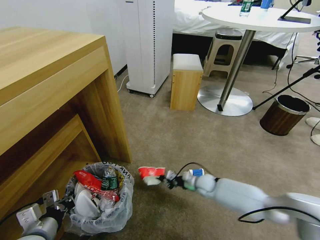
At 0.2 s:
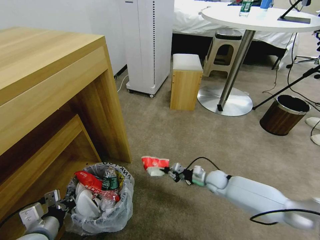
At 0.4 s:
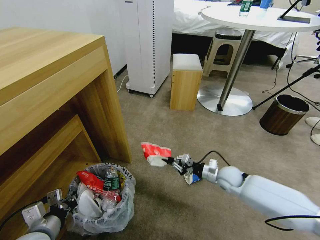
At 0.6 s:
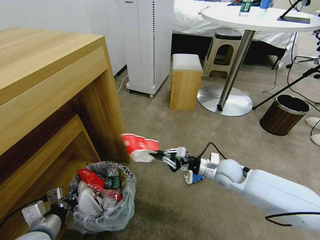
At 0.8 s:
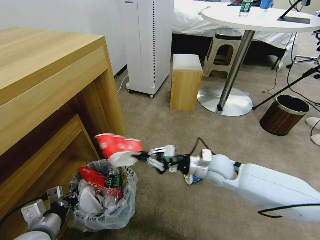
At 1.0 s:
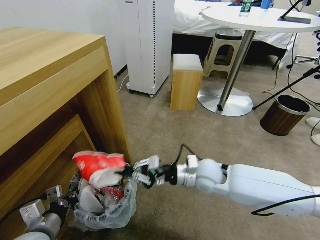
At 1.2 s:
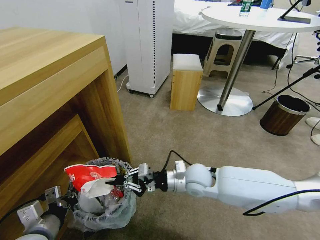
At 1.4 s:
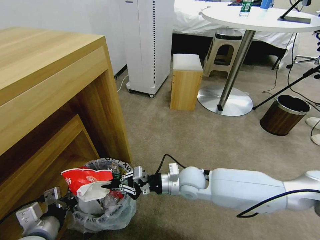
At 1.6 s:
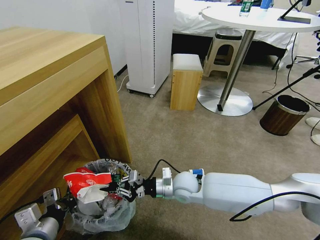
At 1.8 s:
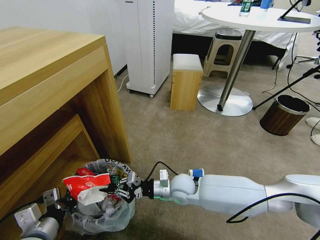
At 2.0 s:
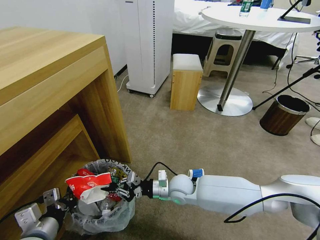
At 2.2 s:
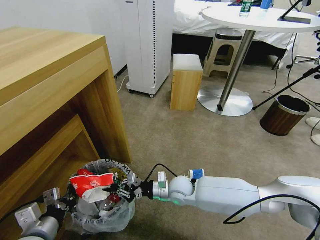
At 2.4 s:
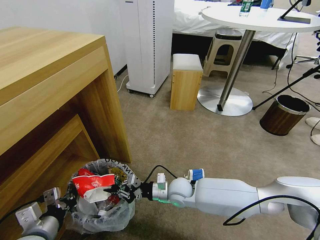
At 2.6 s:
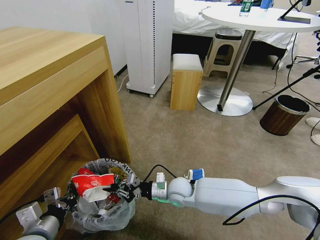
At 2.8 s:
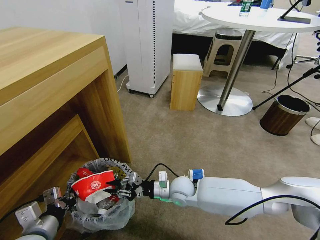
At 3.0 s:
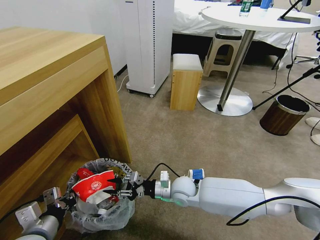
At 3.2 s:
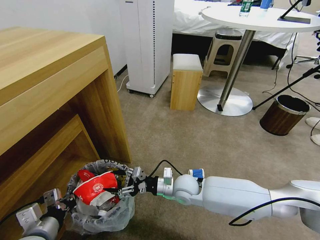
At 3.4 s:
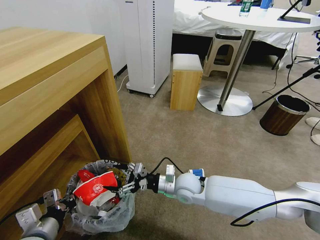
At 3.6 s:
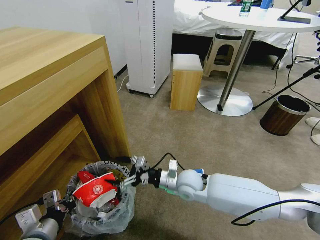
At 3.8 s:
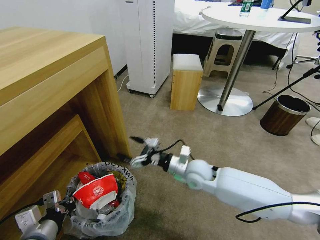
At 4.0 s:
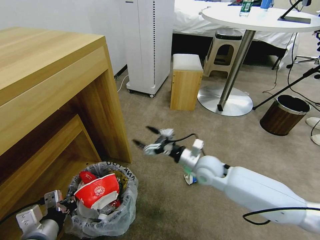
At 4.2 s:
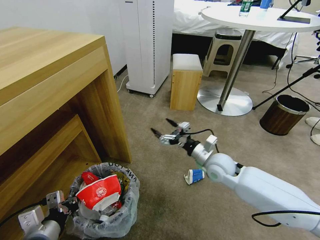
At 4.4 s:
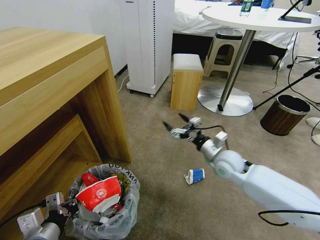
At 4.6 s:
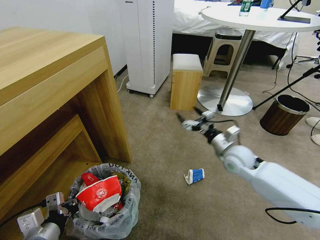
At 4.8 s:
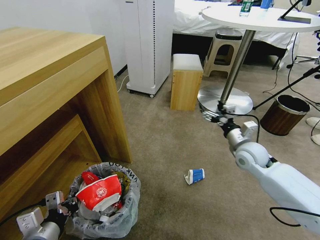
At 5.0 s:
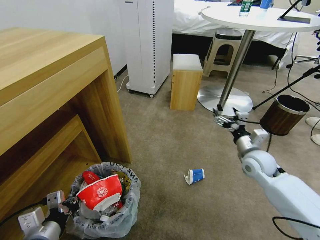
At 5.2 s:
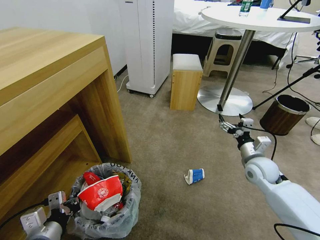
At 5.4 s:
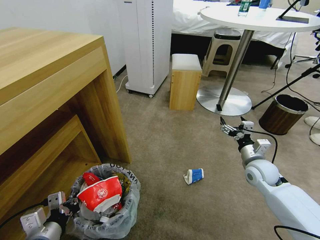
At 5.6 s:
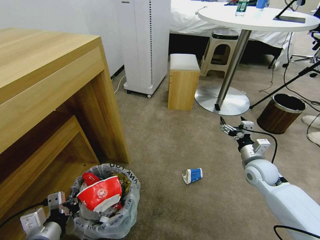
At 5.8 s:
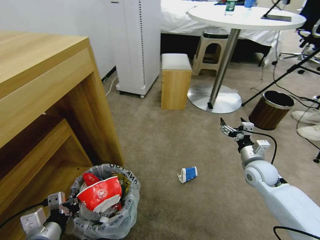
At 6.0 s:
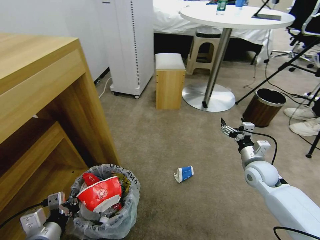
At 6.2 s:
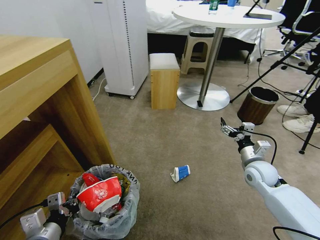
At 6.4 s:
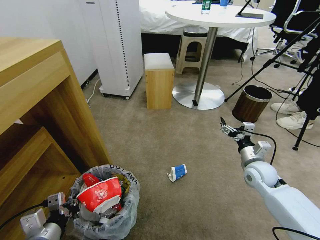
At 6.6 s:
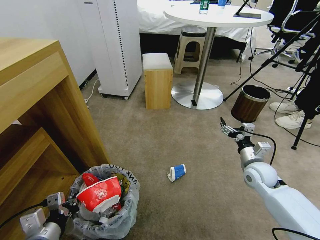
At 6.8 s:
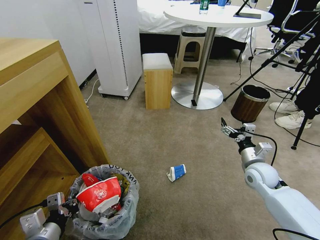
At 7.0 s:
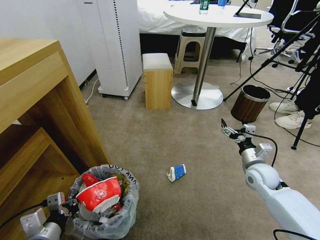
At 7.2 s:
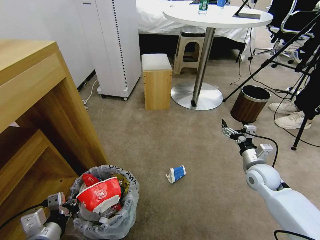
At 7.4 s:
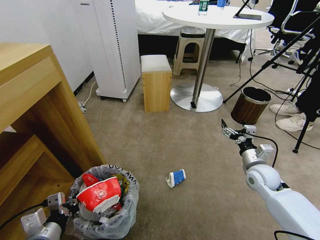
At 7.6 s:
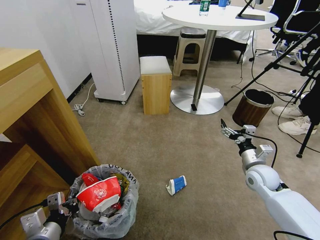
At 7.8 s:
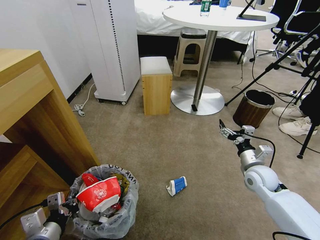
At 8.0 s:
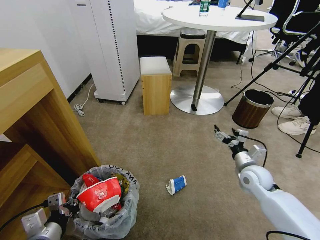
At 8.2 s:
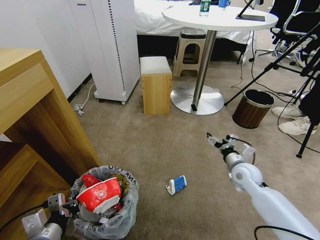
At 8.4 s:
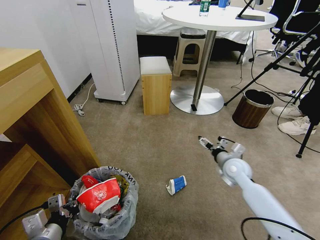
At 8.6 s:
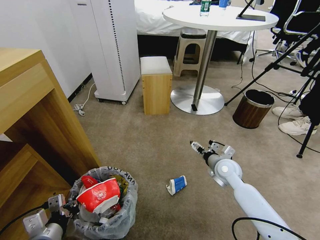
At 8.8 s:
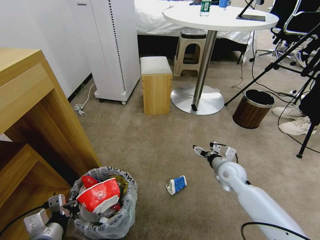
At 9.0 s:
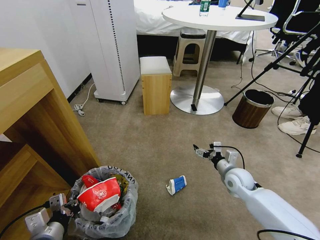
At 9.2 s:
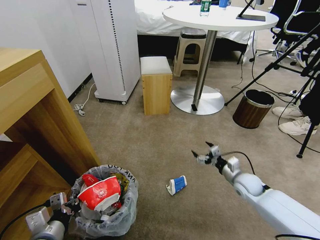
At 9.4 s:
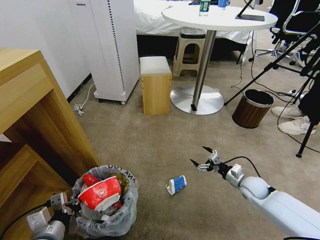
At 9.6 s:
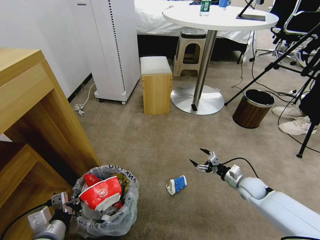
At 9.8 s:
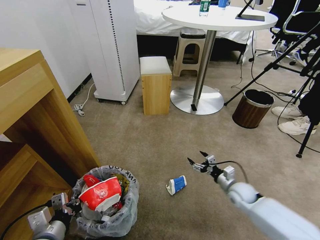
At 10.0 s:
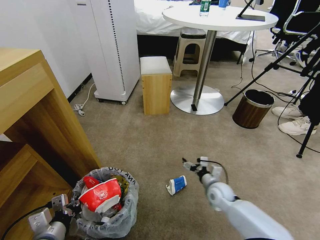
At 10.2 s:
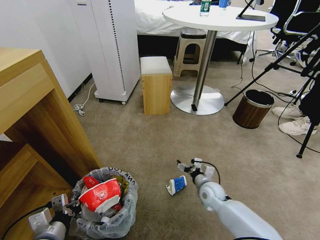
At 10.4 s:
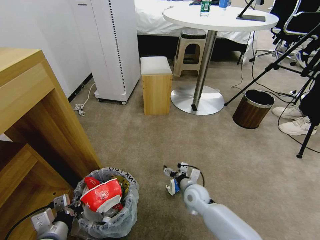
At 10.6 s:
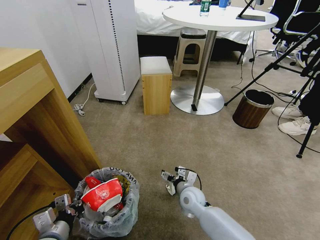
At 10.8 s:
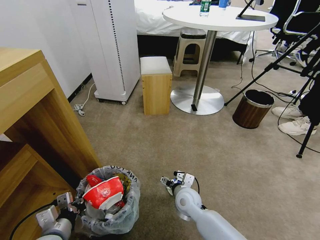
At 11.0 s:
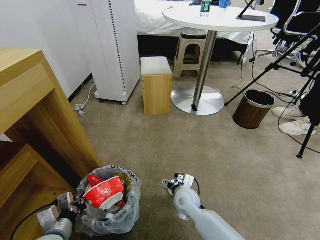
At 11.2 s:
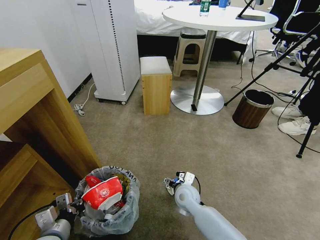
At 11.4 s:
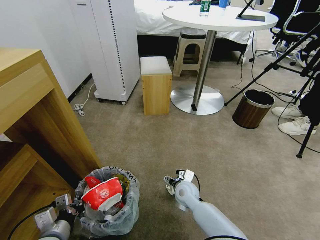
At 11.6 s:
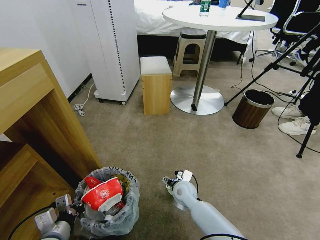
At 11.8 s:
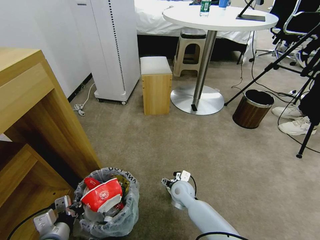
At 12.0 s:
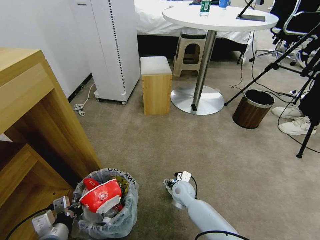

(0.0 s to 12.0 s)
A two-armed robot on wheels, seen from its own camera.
Task of the whole recording: Pick up the trash bin and place the garbage on the floor into it.
0.0 s - 1.6 s: The right gripper shifts roughly 20 cm upward, to the left and backward.
1.6 s - 3.0 s: The right gripper opens up.
3.0 s - 4.4 s: The right gripper heads to the right and upward, covering about 20 cm, and opens its fingers.
4.4 s - 6.0 s: The right gripper travels to the right by some 10 cm.
7.6 s - 9.0 s: The right gripper travels to the left by approximately 5 cm.
9.0 s - 10.4 s: The right gripper heads to the left and downward, covering approximately 15 cm.
10.4 s - 12.0 s: The right gripper shifts some 5 cm to the left.

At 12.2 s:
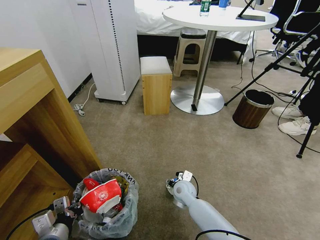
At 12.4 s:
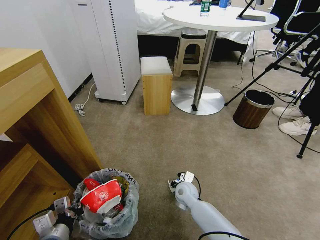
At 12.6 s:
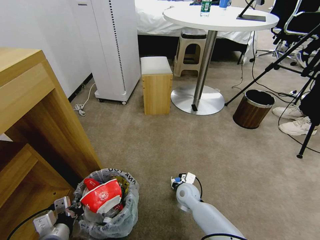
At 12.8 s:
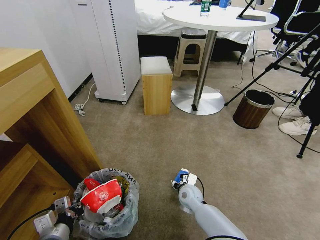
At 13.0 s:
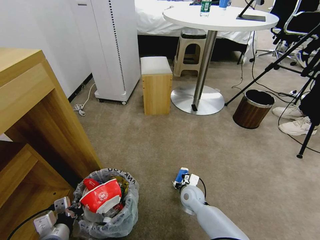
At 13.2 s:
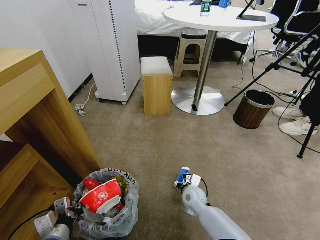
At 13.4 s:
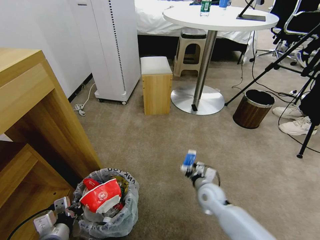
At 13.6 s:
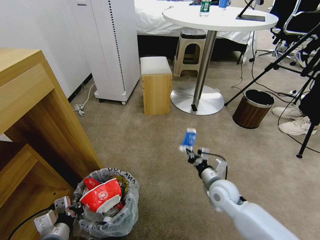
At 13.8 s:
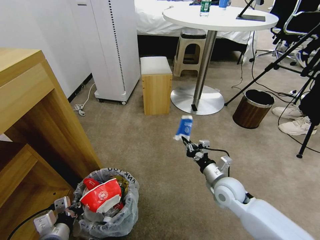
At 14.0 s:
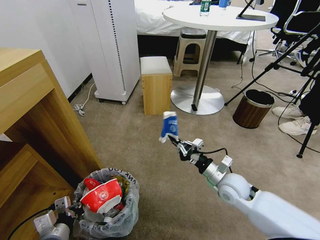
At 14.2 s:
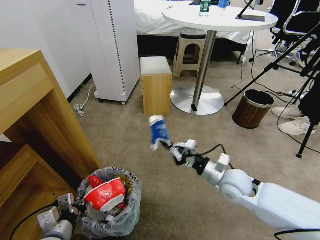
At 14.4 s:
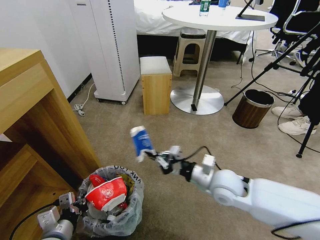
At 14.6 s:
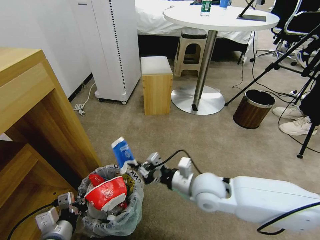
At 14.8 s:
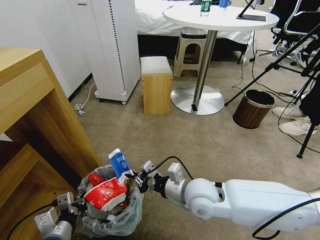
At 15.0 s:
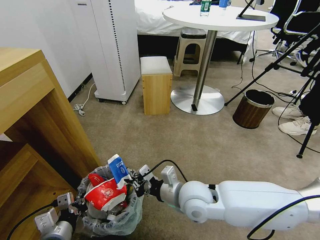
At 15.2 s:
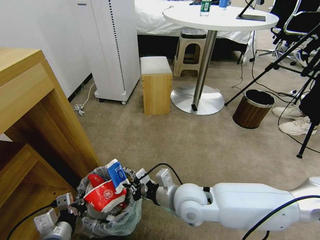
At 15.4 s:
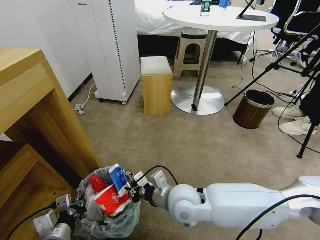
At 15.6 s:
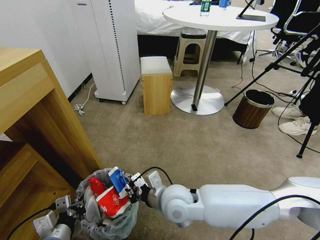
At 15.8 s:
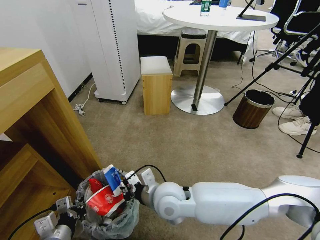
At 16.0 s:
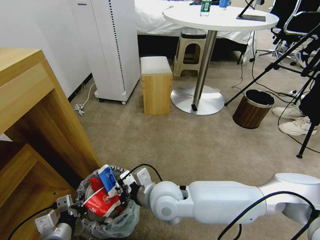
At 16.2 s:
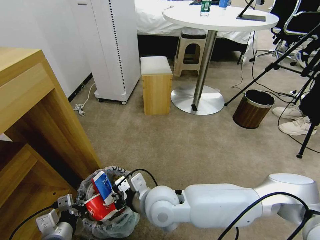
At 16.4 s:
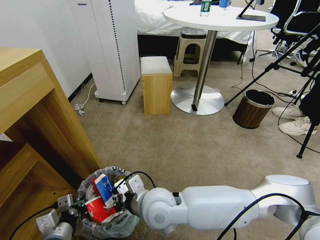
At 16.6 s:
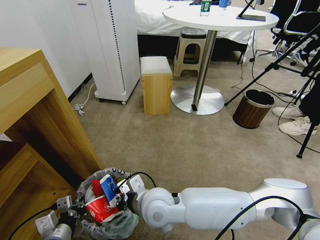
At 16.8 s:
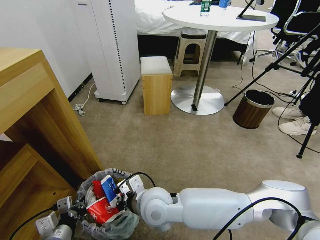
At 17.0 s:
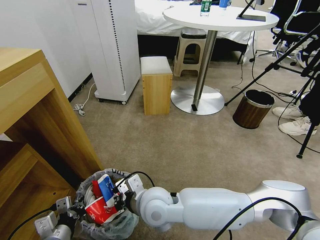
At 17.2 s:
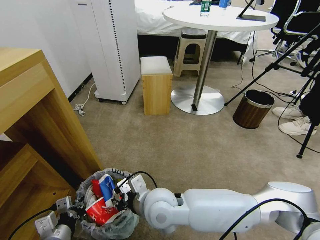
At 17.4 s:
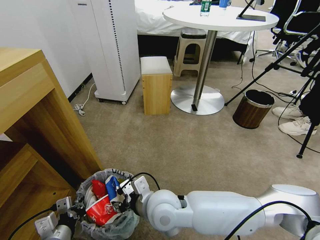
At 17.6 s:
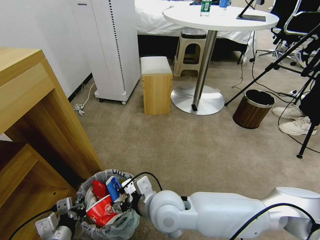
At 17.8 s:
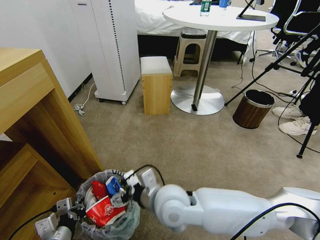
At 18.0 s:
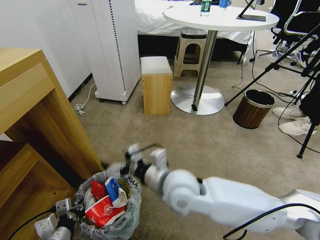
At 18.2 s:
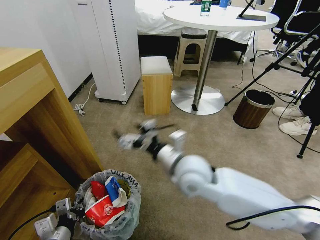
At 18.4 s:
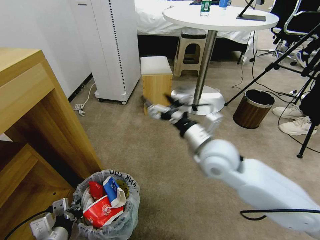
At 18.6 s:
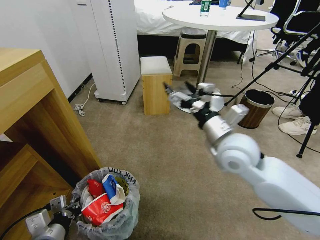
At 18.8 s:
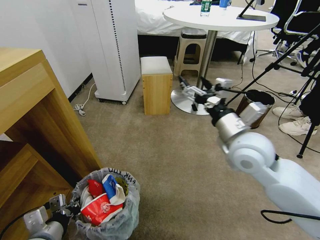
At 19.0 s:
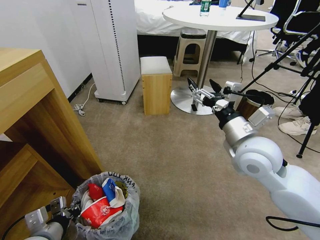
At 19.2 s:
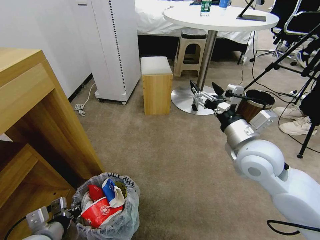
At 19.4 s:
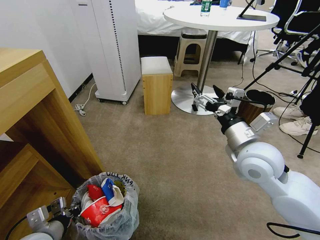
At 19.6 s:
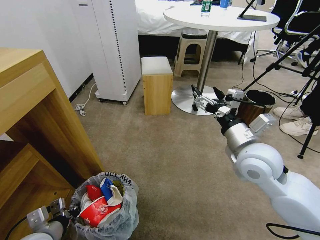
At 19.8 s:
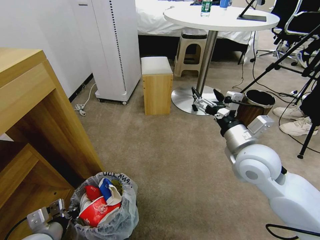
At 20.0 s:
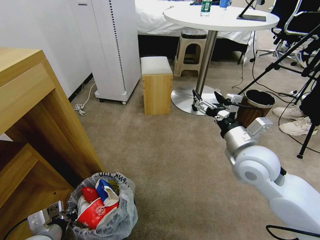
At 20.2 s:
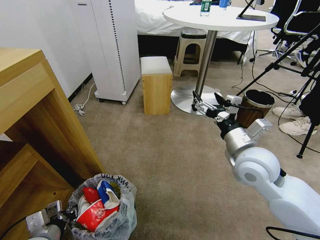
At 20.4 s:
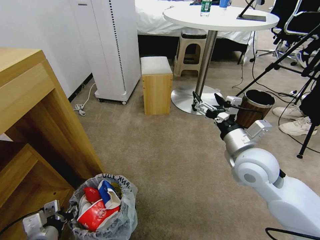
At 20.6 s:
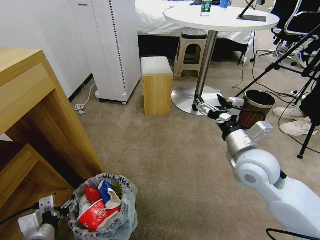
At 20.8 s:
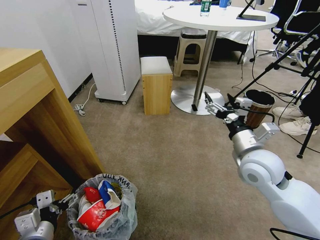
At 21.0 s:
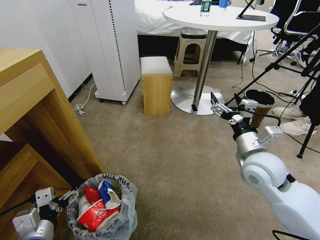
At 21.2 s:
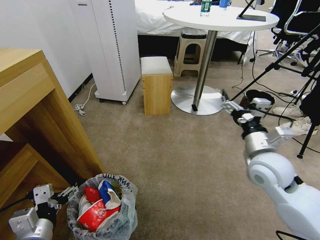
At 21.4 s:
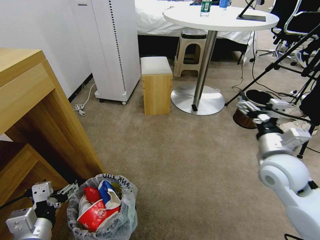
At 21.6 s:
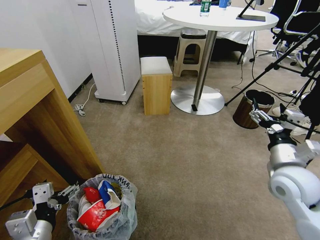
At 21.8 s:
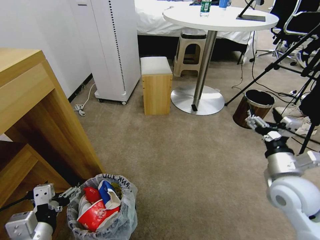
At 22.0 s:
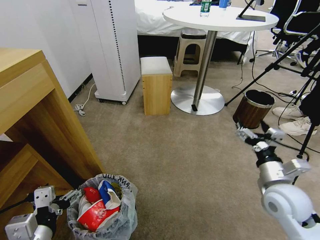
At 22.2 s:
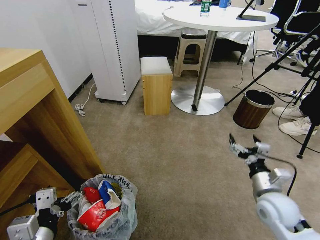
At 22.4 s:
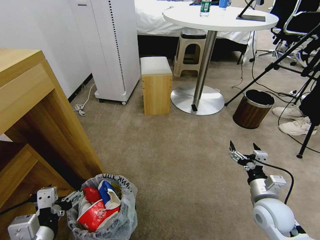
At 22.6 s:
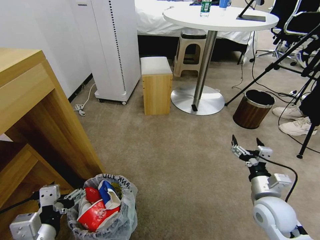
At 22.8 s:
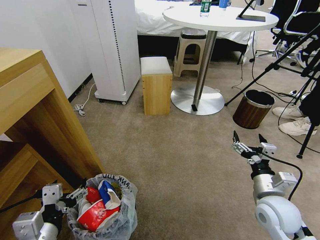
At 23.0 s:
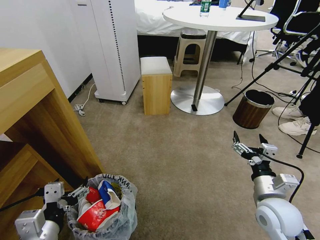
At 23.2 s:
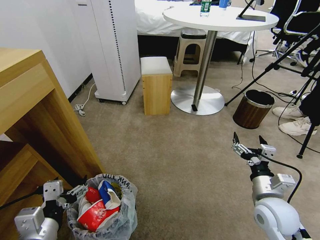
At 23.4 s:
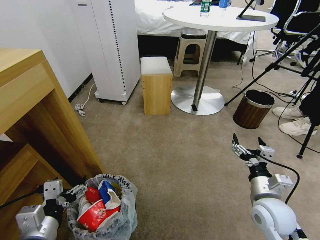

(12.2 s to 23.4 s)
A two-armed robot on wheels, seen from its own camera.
Task of the whole recording: Pick up the trash bin and place the garbage on the floor into it.
12.2 s - 13.8 s: The right gripper heads to the right and upward, covering about 20 cm, and closes up.
13.8 s - 15.4 s: The right gripper heads to the left, covering roughly 15 cm.
15.4 s - 17.0 s: The right gripper is displaced to the left by approximately 10 cm.
17.0 s - 18.6 s: The right gripper goes approximately 25 cm to the right and upward, and opens up.
18.6 s - 20.2 s: The left gripper opens. The right gripper shifts approximately 5 cm to the right.
20.2 s - 21.8 s: The right gripper is displaced to the right, downward and backward by about 10 cm; the left gripper travels upward by roughly 10 cm, and opens up.
21.8 s - 23.4 s: The right gripper travels downward by some 10 cm.
